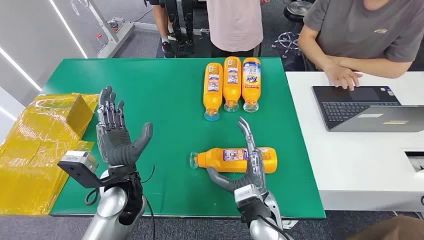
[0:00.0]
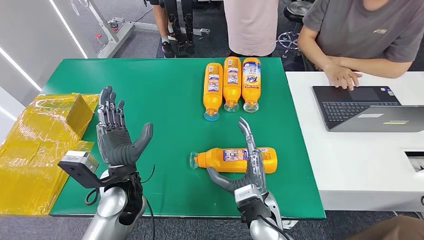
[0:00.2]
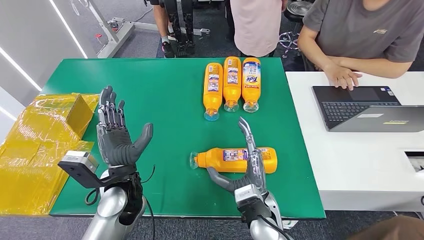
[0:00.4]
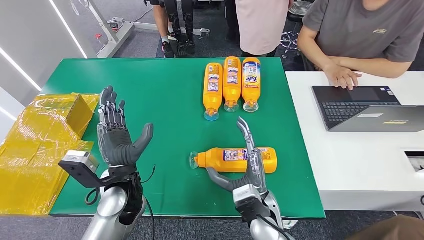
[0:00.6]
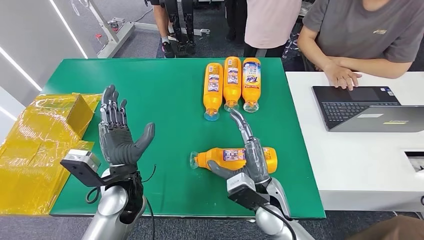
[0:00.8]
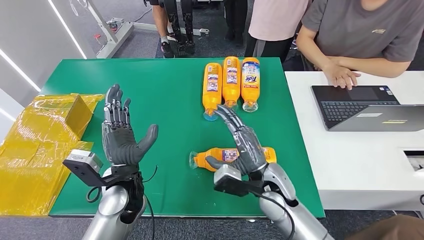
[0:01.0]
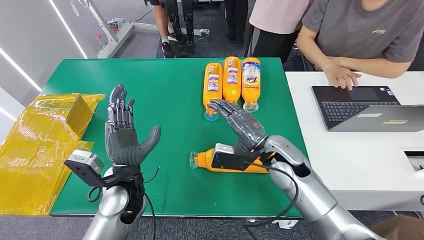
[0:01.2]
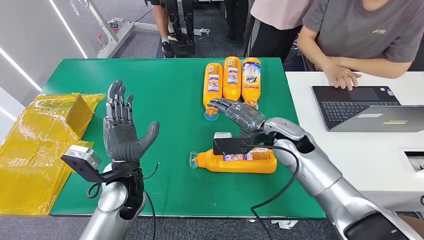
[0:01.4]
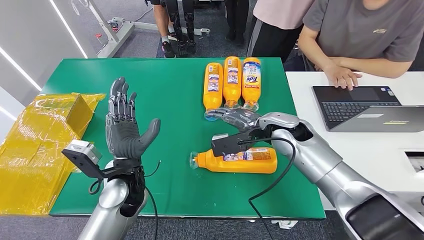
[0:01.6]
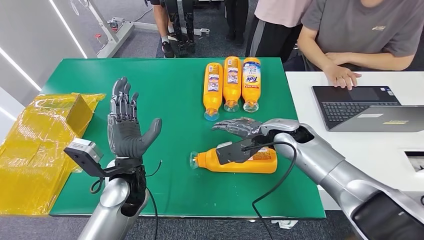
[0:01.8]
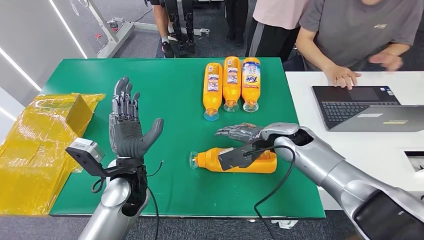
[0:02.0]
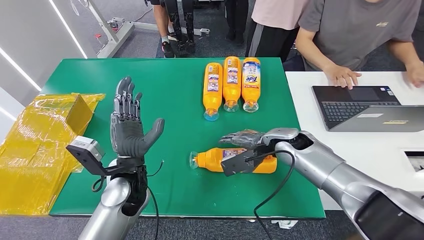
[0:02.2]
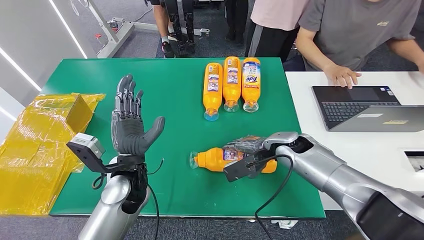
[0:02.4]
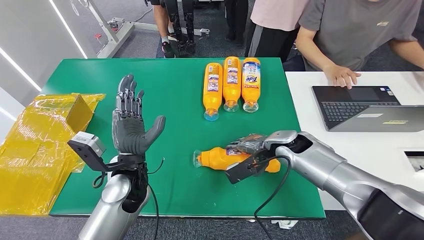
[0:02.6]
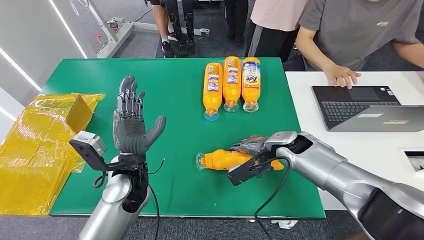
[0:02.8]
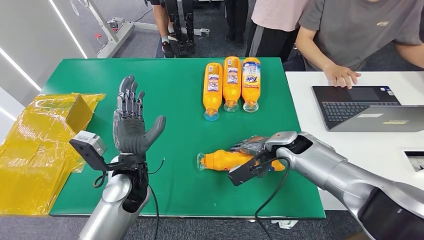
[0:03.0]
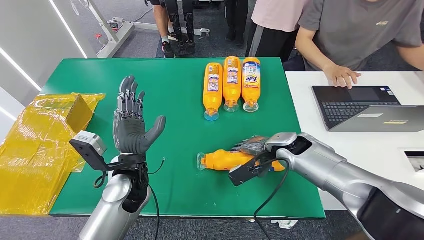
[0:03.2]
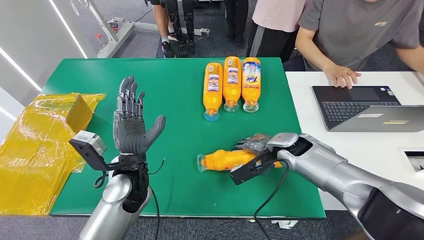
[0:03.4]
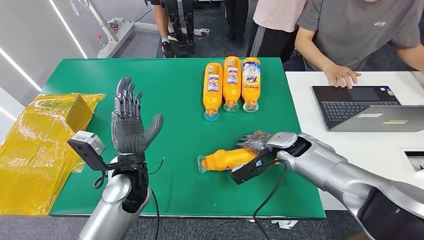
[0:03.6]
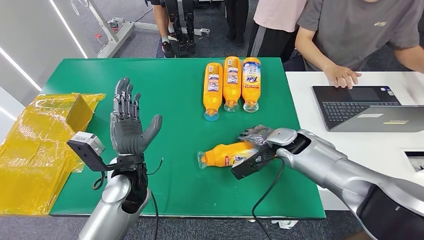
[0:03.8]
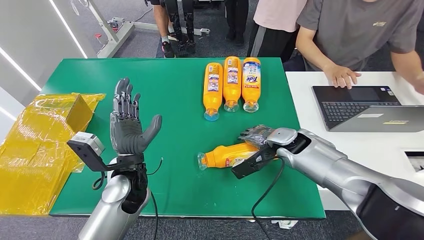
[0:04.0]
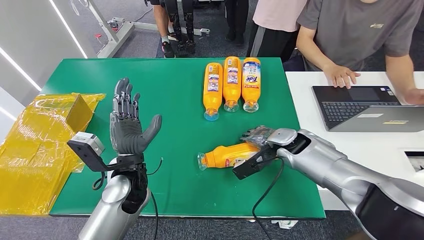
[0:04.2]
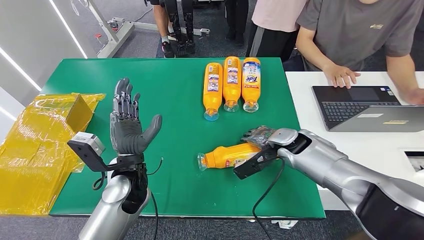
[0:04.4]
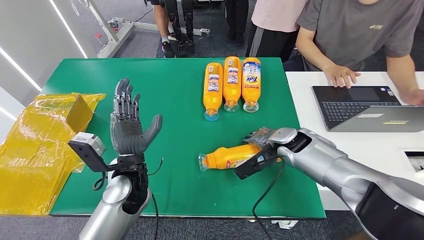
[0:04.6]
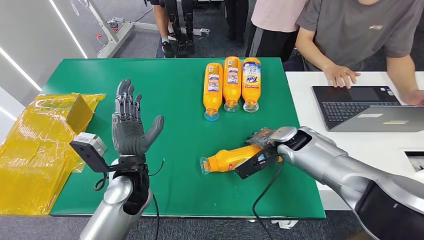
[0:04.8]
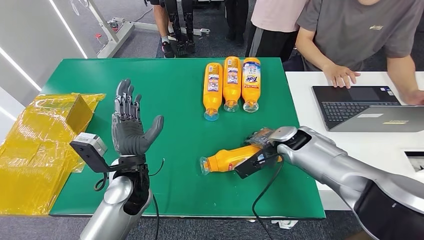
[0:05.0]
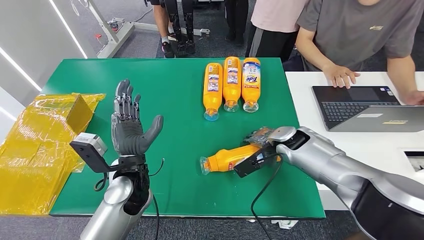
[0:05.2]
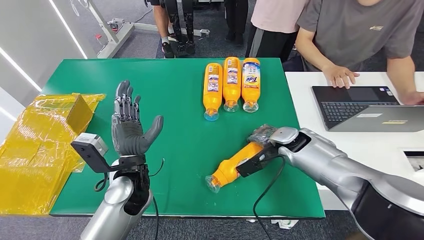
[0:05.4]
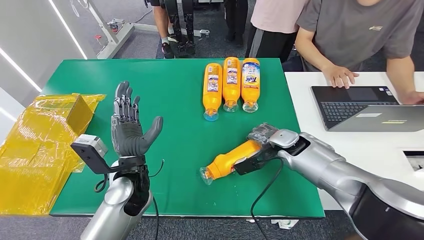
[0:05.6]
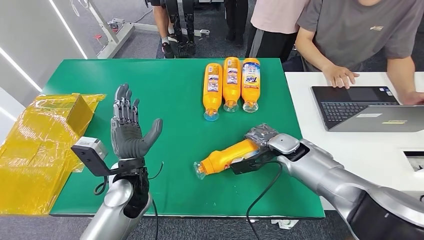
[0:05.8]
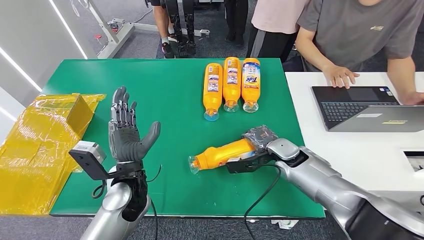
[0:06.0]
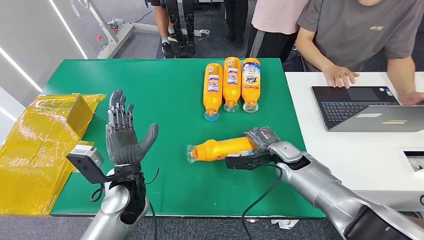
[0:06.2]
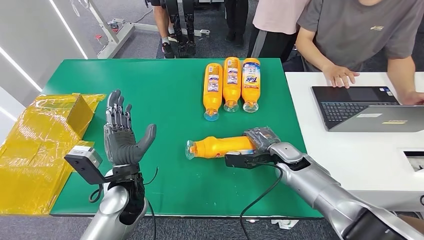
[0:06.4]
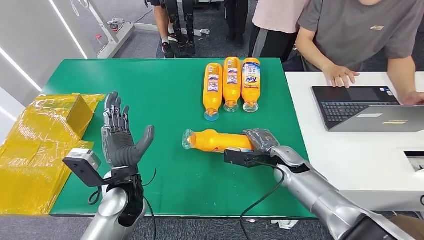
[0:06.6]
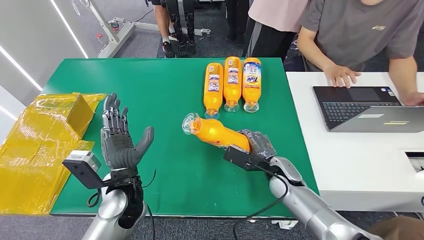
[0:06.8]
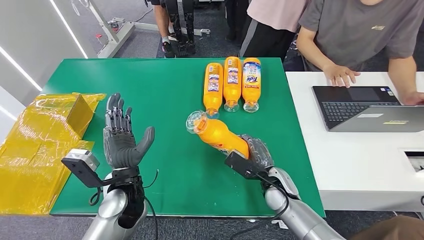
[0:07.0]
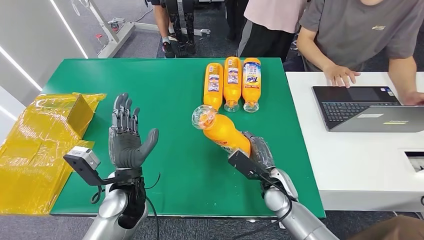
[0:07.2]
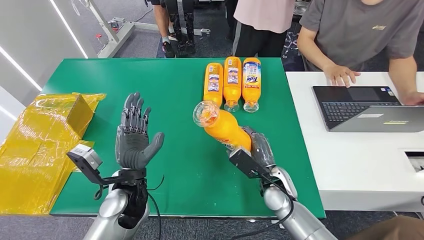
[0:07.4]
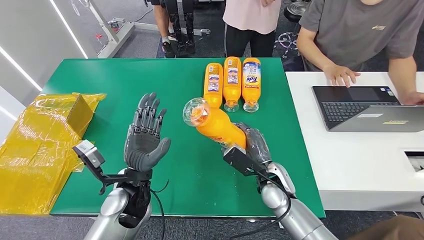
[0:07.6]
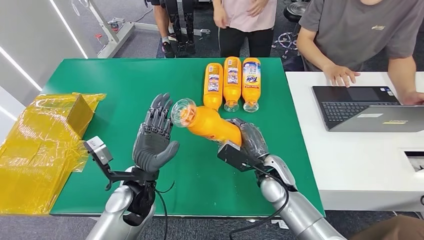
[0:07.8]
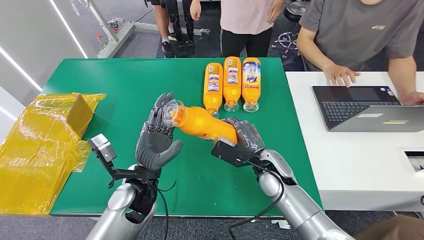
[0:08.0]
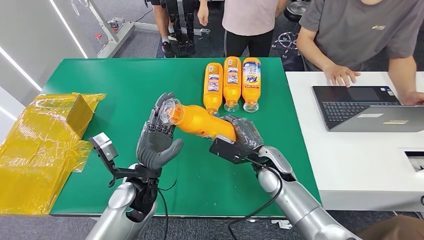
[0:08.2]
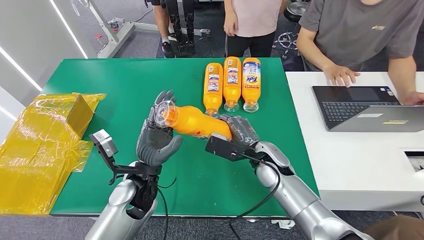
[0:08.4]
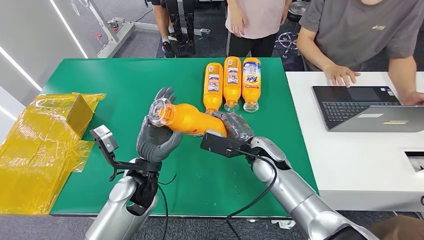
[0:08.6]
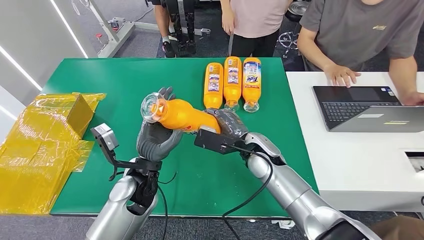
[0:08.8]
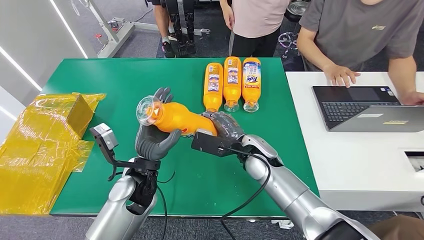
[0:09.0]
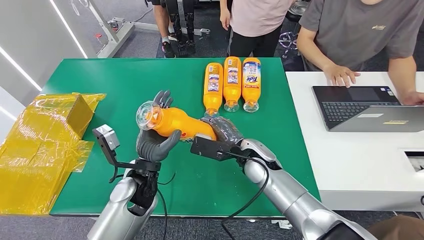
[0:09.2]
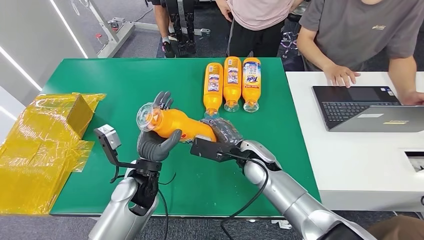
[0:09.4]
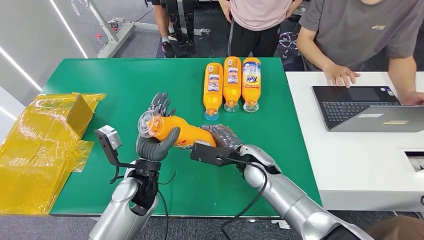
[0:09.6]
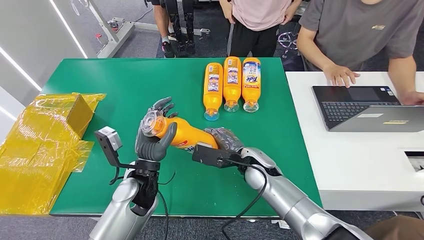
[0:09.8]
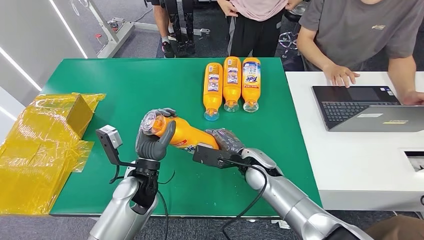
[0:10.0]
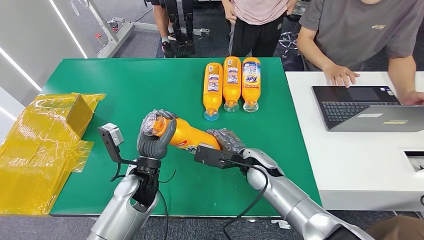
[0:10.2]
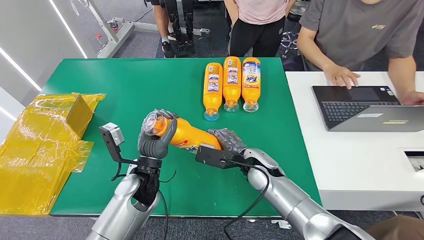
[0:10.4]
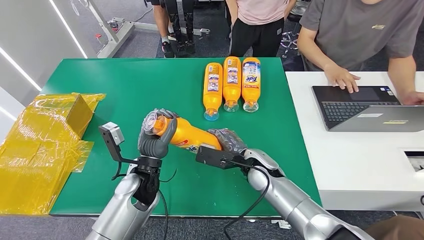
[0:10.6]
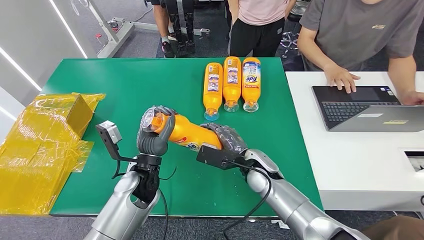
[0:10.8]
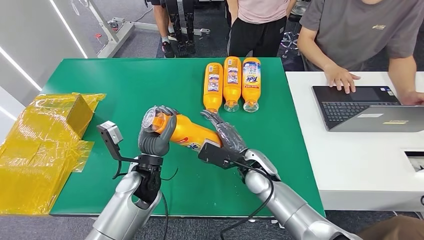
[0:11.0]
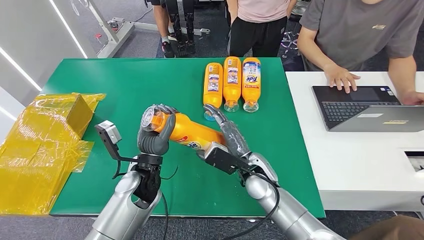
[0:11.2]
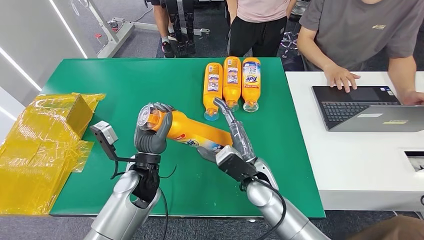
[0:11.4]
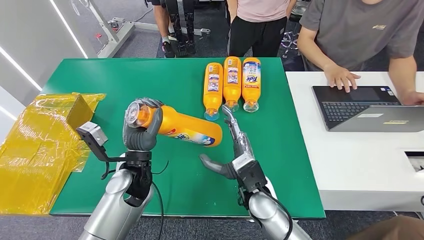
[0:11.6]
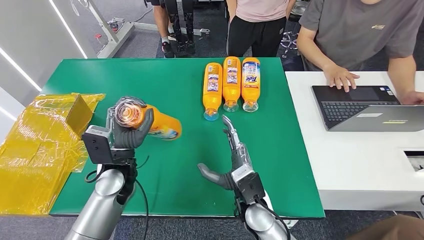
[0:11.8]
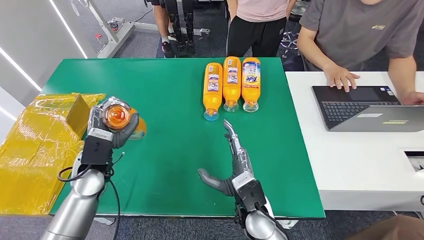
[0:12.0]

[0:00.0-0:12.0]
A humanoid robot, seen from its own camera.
Step, 0:00.0 to 0:09.0: Pick up the bottle from the table.
0:01.6 to 0:03.0: The right hand travels downward by approximately 5 cm.
0:03.0 to 0:04.4: The hands move only a little.
0:07.6 to 0:09.0: The right hand goes roughly 10 cm upward and forward.
0:09.0 to 0:10.4: The hands move only a little.
0:10.4 to 0:12.0: The right hand is displaced backward by some 10 cm; the left hand is displaced to the left by roughly 10 cm.

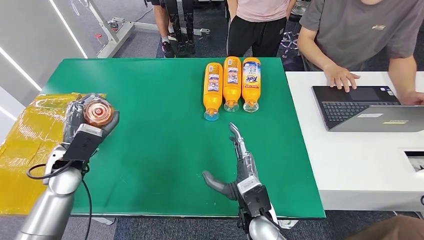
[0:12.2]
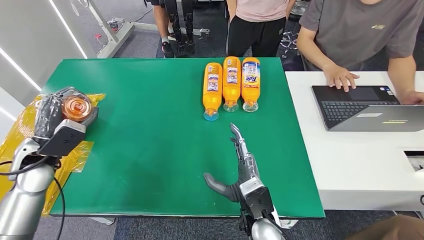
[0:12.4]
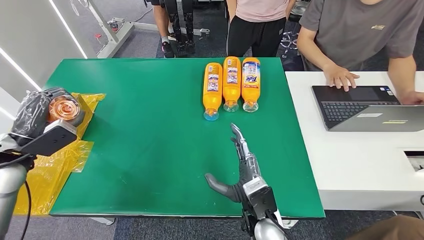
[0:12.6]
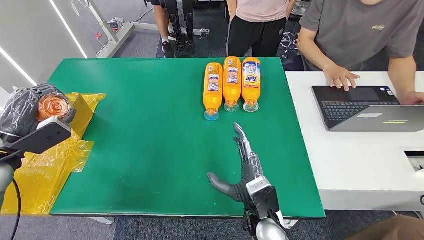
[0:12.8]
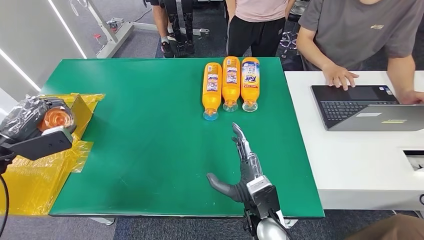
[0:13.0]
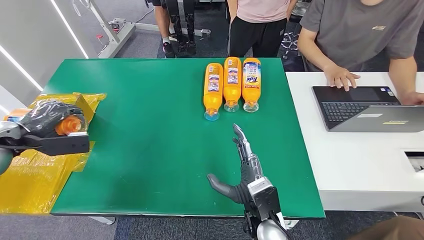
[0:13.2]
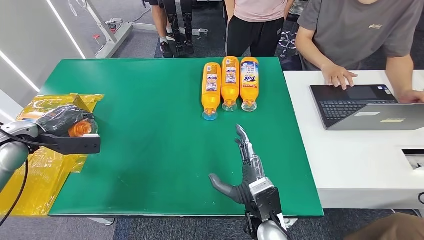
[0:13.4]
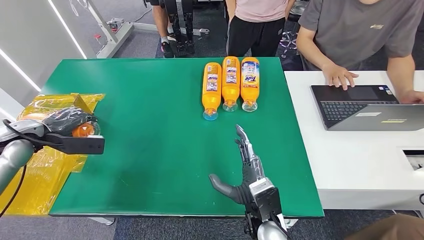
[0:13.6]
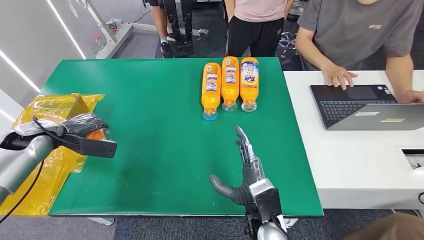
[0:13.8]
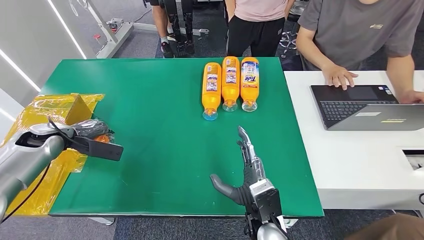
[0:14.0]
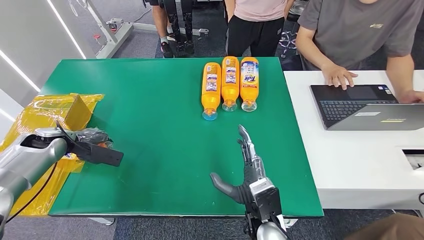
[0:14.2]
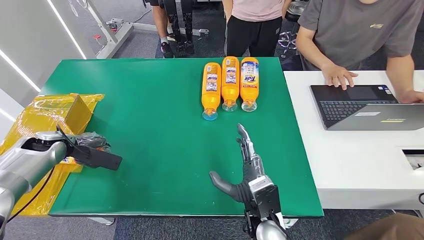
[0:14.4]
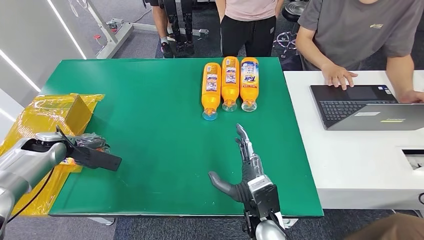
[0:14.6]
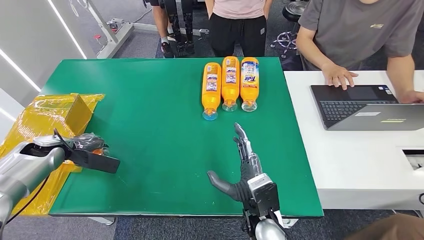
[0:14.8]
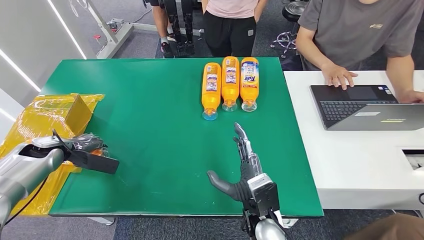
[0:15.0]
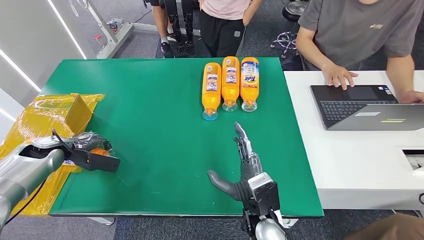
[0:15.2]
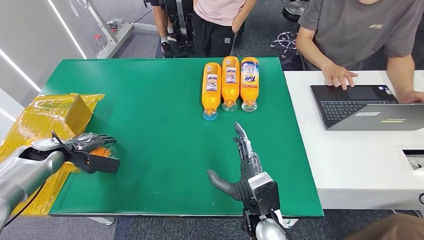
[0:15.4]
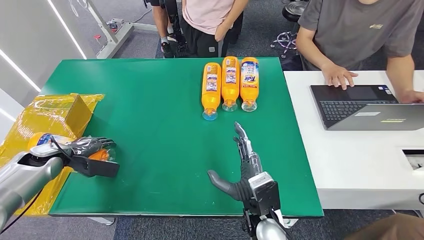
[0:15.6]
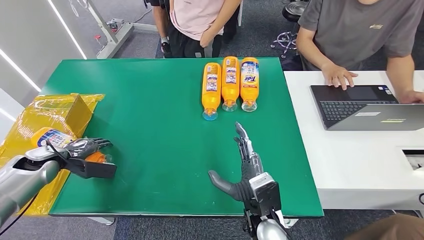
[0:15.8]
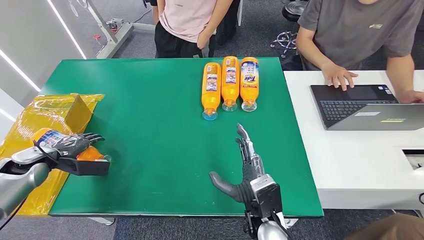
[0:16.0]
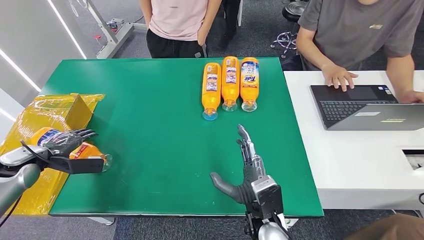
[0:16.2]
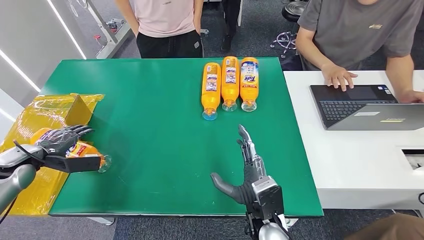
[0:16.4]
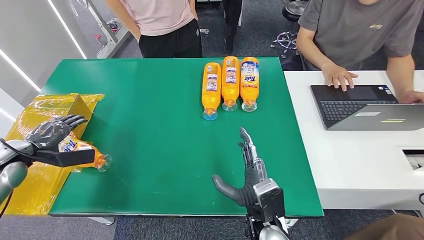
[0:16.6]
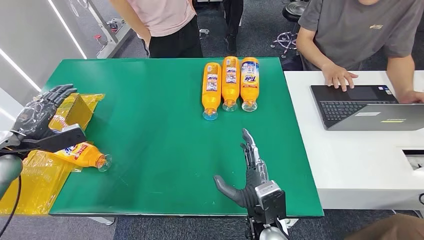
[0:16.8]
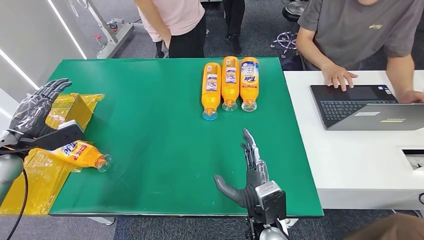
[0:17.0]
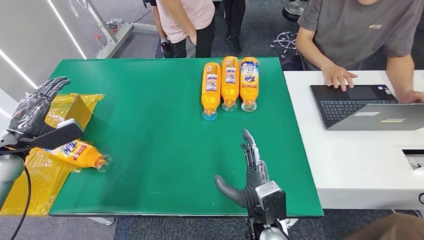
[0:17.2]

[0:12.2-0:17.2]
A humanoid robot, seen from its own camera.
Step, 0:12.2 to 0:17.2: Turn the bottle to the front side.
0:13.8 to 0:15.6: The left hand shifts about 10 cm downward.
0:15.6 to 0:17.2: The left hand heads upward, covering about 10 cm.
